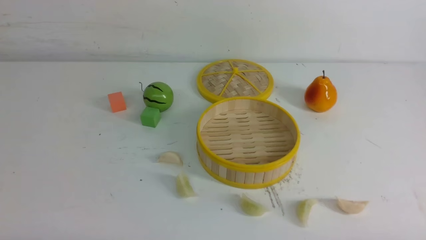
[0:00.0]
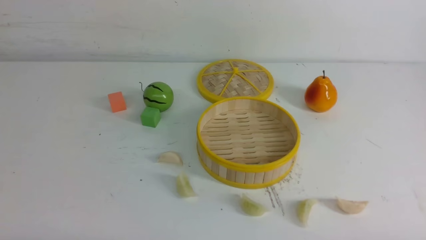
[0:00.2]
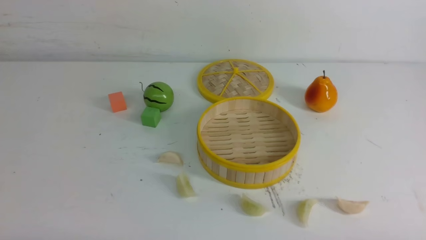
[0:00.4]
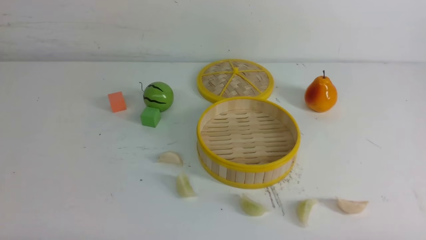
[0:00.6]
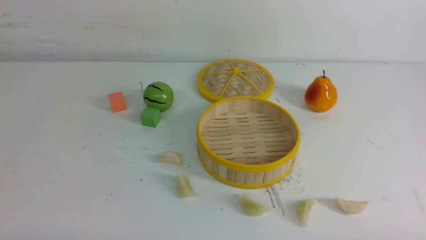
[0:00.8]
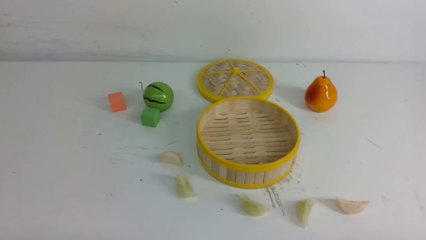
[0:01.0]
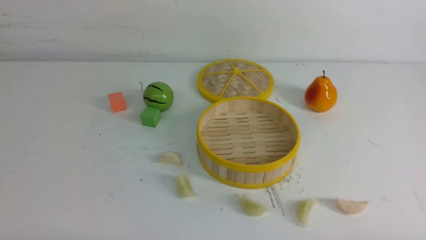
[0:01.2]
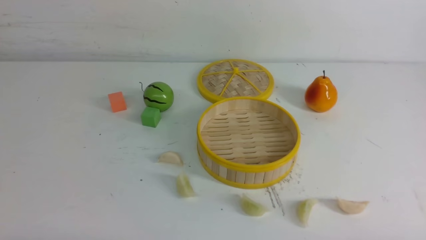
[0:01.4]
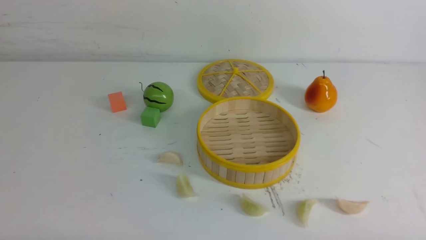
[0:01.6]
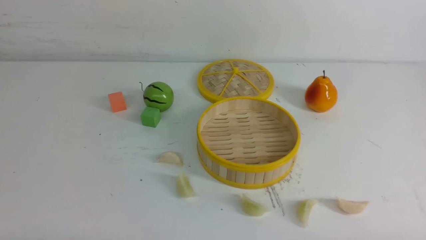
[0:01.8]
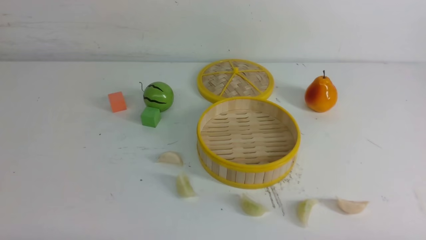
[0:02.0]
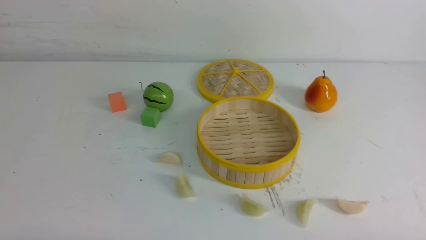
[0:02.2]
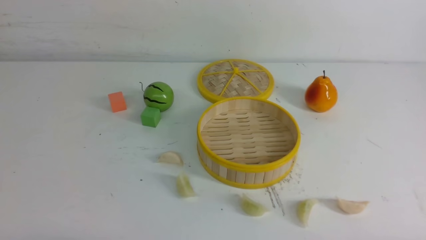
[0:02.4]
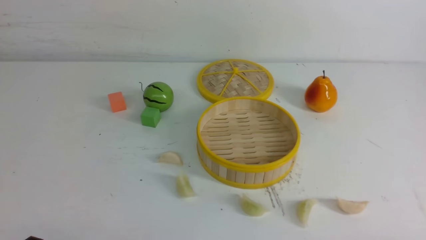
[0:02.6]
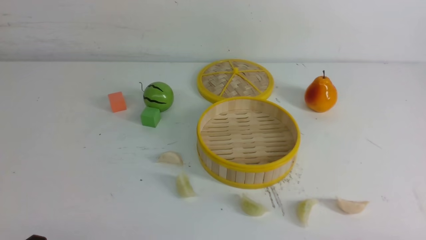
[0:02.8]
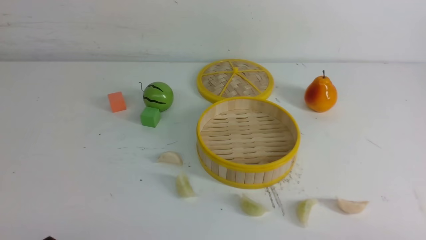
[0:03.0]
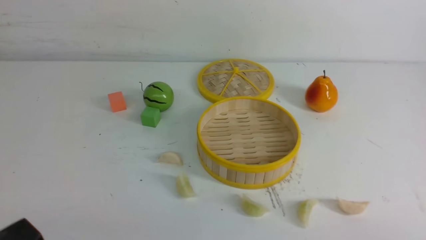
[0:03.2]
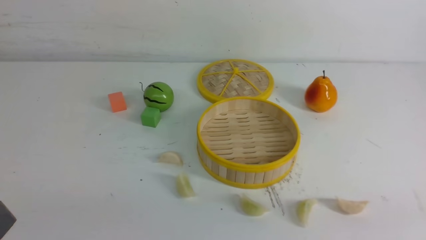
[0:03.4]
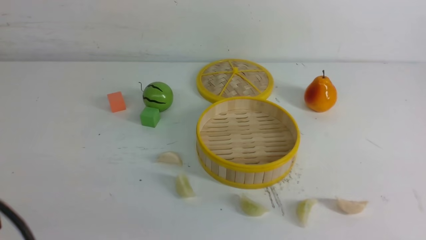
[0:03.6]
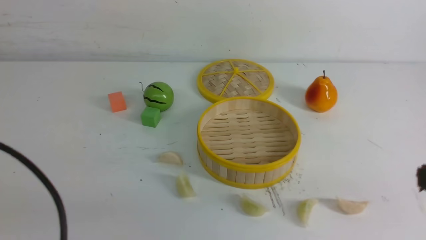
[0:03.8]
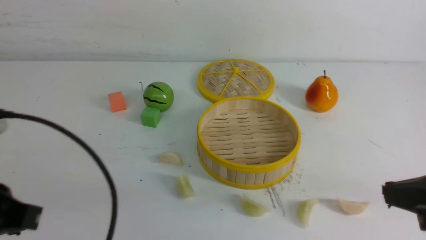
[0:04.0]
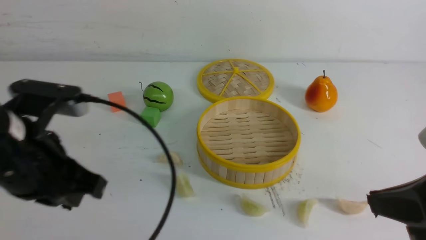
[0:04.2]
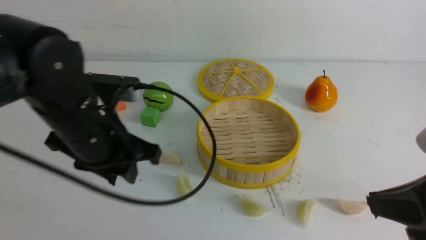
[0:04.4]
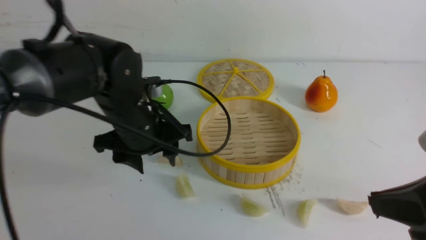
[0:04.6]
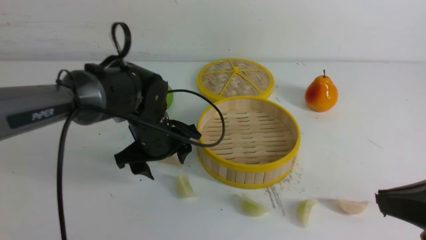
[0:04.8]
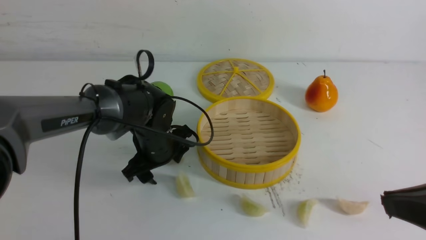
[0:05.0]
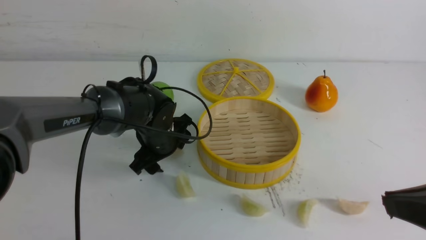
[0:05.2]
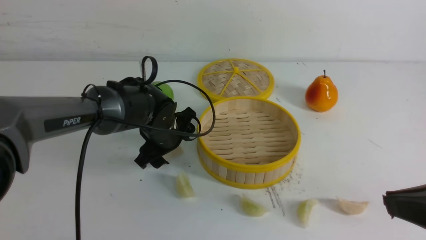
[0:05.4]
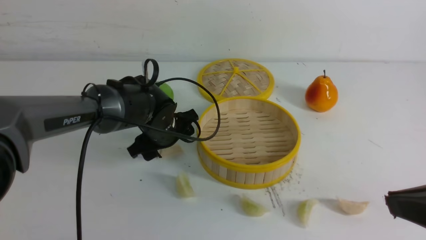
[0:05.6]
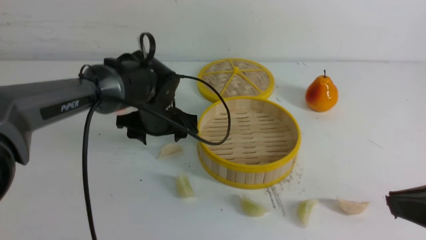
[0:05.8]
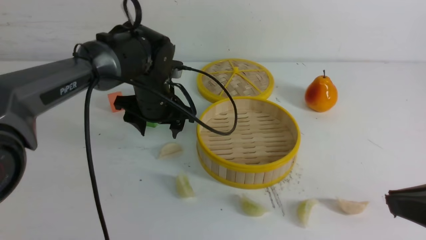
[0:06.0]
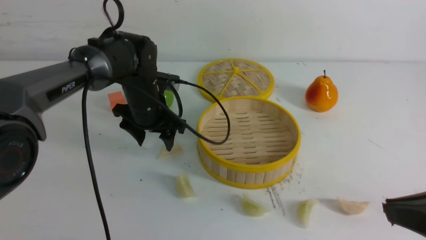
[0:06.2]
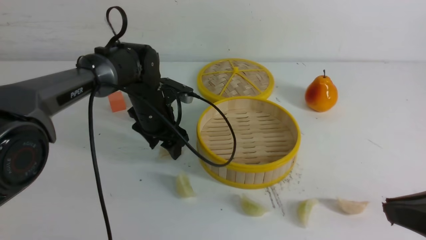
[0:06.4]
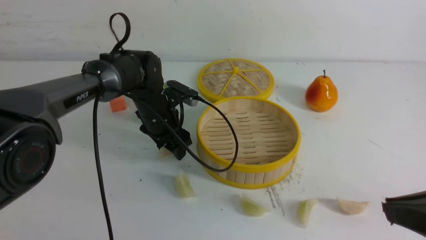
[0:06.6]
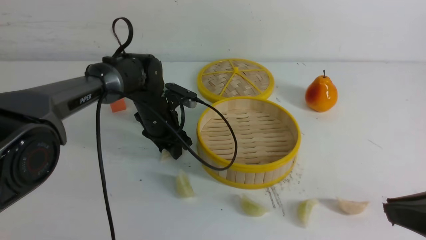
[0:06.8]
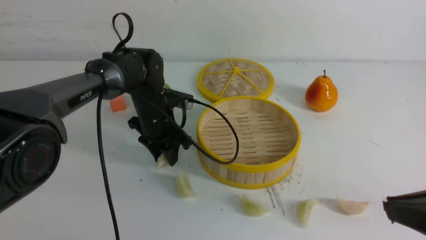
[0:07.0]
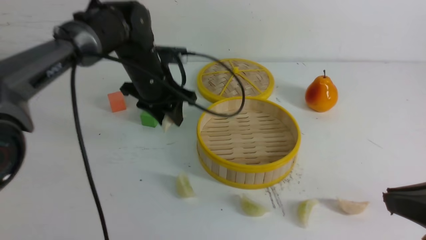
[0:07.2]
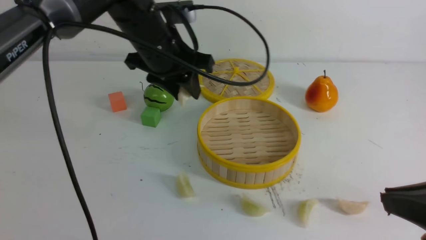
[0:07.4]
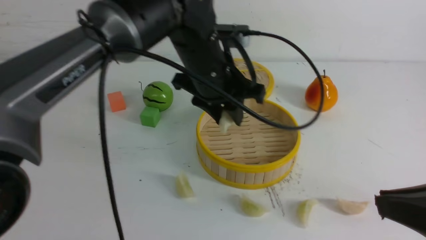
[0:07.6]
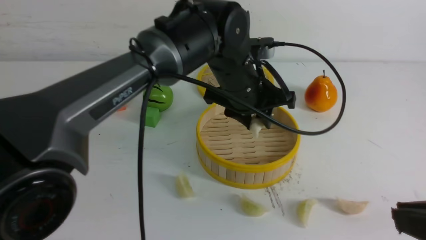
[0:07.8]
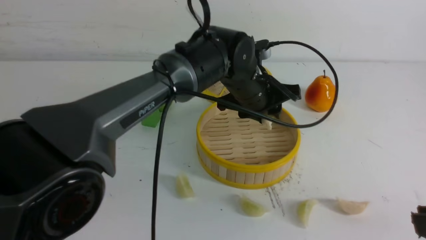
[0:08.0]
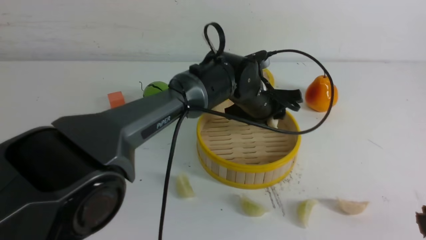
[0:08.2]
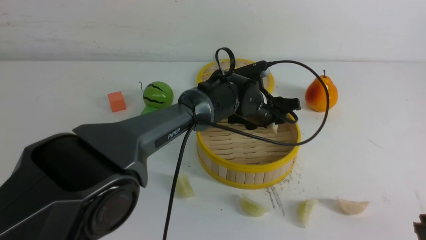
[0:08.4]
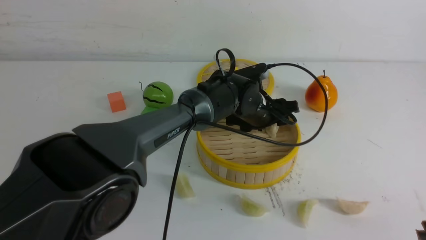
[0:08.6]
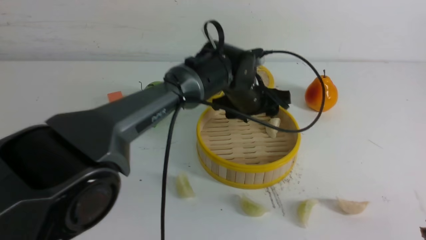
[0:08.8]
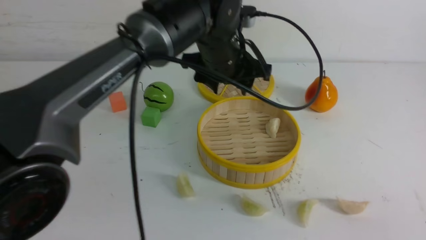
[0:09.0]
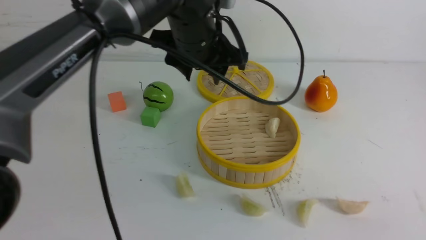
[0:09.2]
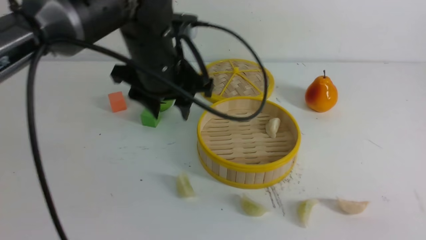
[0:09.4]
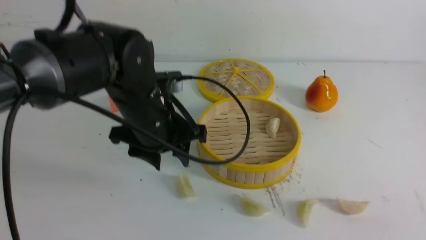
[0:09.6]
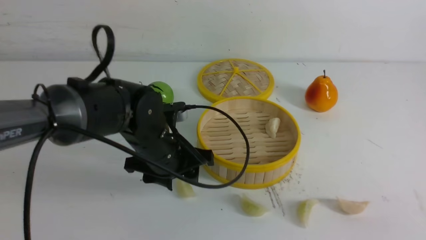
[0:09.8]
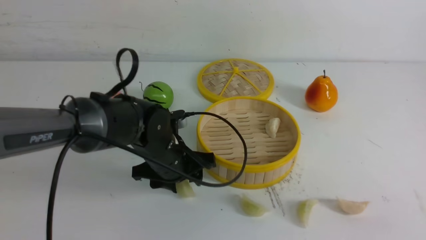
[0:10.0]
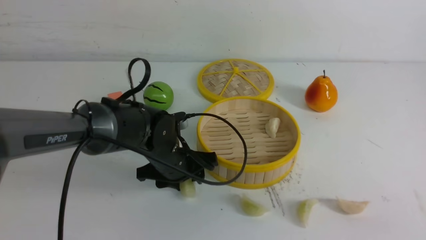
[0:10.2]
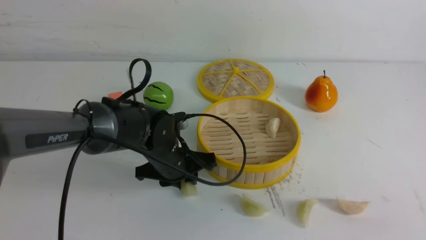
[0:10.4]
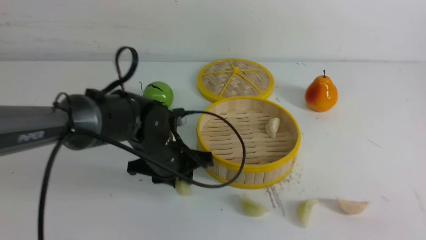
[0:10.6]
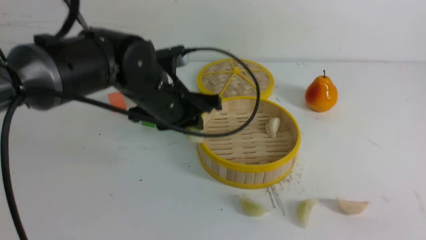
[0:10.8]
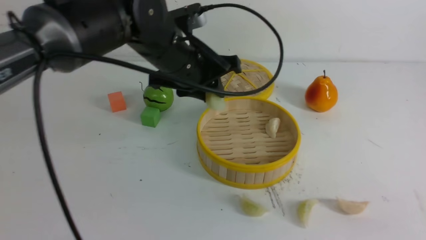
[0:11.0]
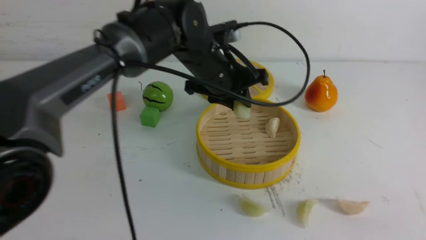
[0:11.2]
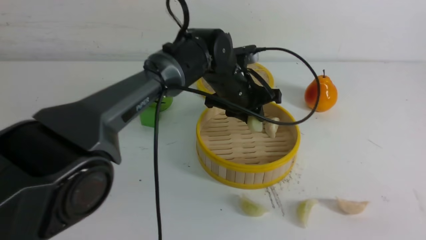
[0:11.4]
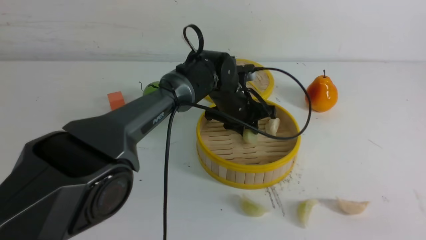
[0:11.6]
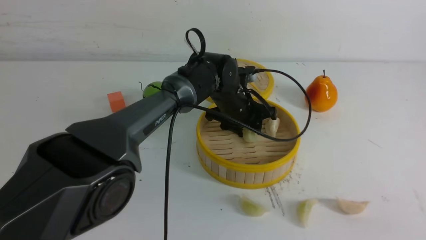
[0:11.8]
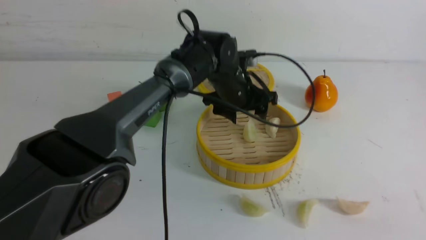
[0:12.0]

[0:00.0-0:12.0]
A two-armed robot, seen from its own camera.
Task of the whole recording: put the dumplings into the steamer on the white table.
Step, 0:00.0 to 0:07.0: use the left arm to grab a dumpling.
Step, 0:07.2 to 0:08.6: use the left arm to put the dumpling into the steamer.
Step, 0:08.8 to 0:10.6: use the left arm to grab a dumpling.
Step, 0:10.8 to 0:11.8: use the left arm to put the dumpling into the steamer.
0:00.0 to 0:01.6: Neither gripper changes place.
0:03.0 to 0:04.4: The right gripper travels upward, forward and to the left by roughly 15 cm, and closes up. The left gripper shifts approximately 25 cm forward and to the right, and closes and opens again.
0:04.4 to 0:06.0: The left gripper travels forward and downward by approximately 15 cm, and opens up.
0:06.0 to 0:07.6: The left gripper heads upward and to the right, covering about 15 cm, and closes its fingers.
0:07.6 to 0:09.0: The left gripper travels downward and back again, roughly 10 cm each way.
0:09.0 to 0:10.4: The left gripper is displaced downward and to the left by approximately 15 cm.
0:10.4 to 0:12.0: The left gripper goes up and down, some 15 cm each way, reversing 2 times, and opens its fingers.

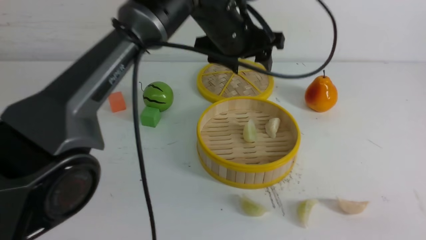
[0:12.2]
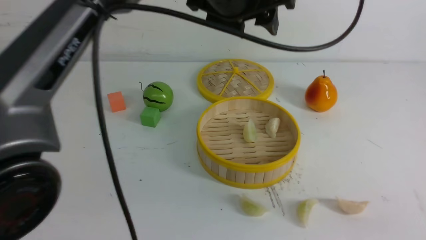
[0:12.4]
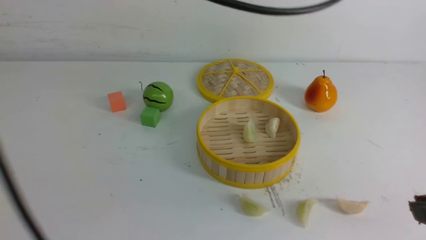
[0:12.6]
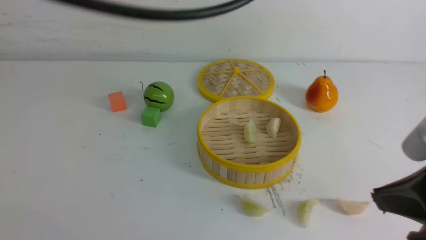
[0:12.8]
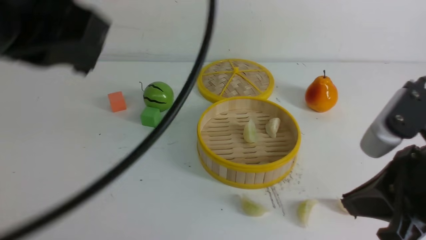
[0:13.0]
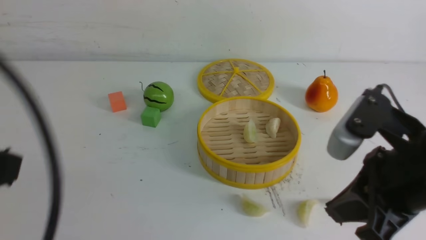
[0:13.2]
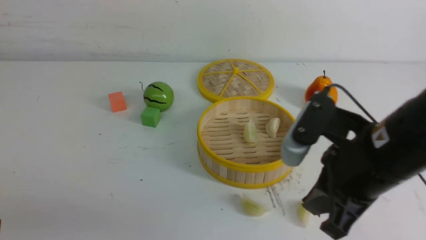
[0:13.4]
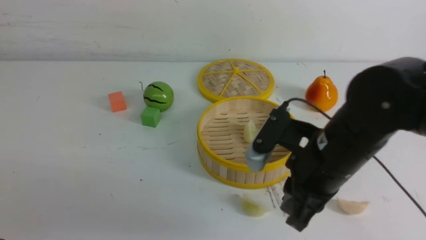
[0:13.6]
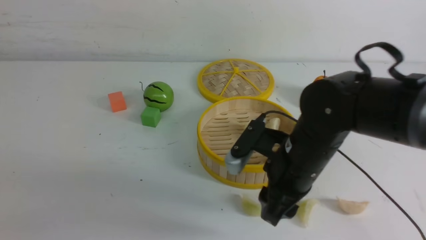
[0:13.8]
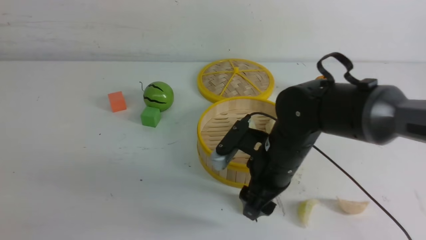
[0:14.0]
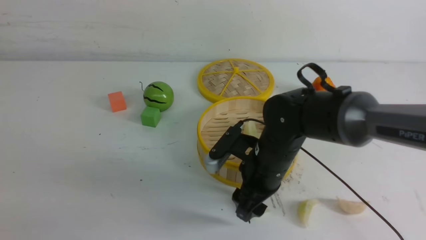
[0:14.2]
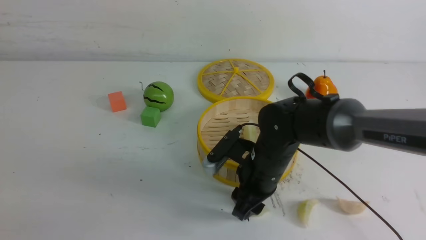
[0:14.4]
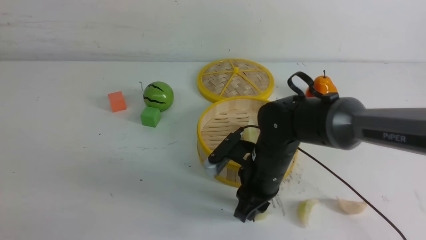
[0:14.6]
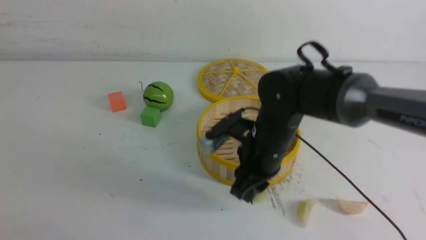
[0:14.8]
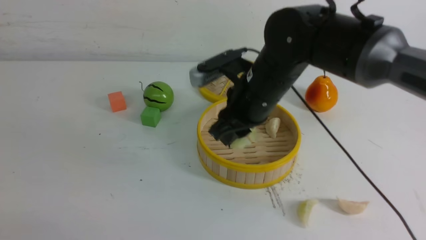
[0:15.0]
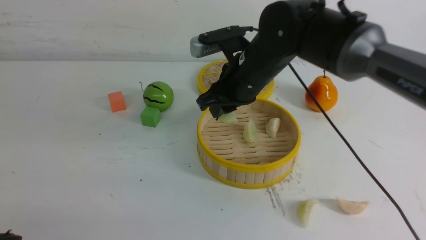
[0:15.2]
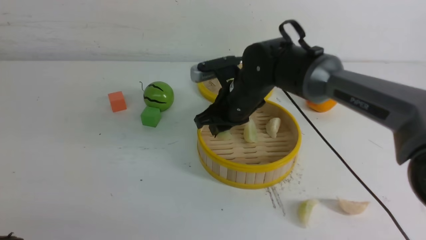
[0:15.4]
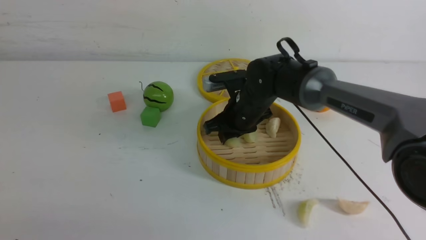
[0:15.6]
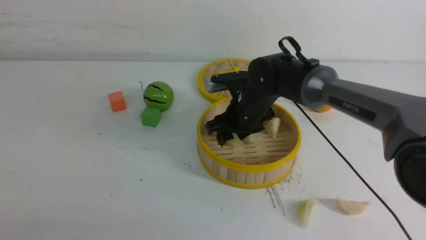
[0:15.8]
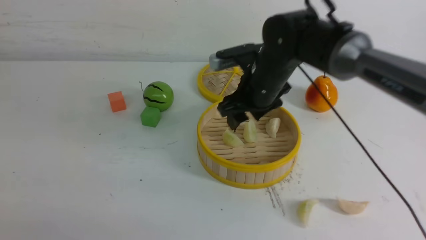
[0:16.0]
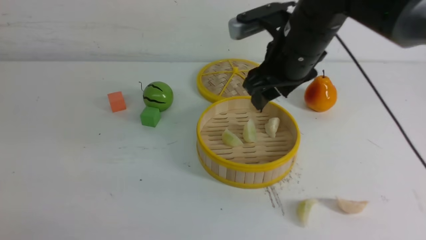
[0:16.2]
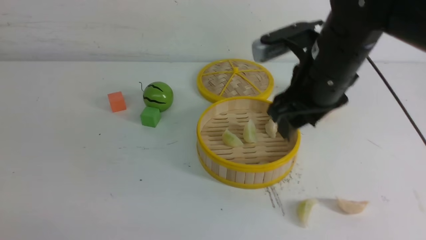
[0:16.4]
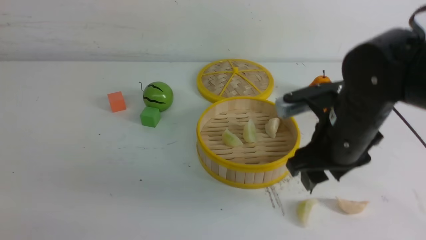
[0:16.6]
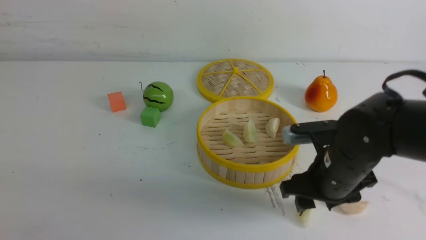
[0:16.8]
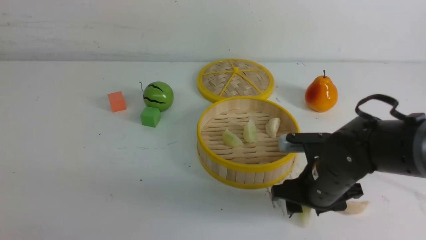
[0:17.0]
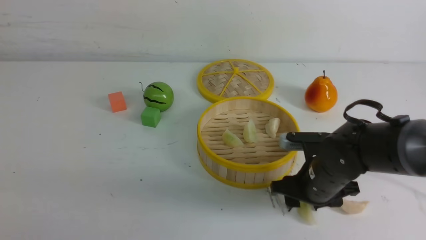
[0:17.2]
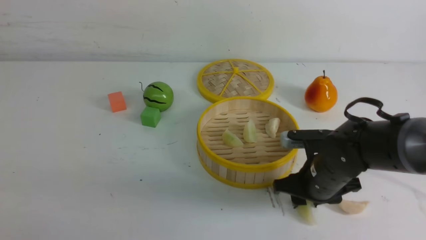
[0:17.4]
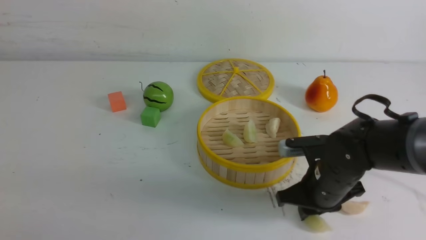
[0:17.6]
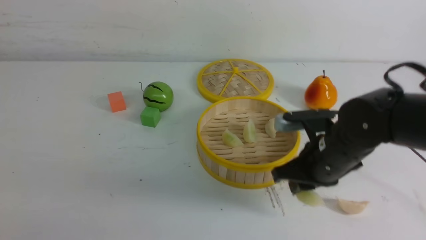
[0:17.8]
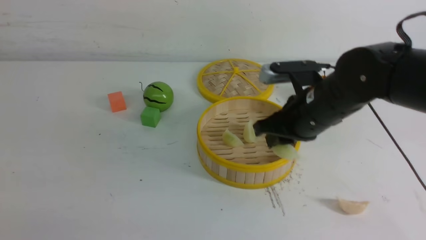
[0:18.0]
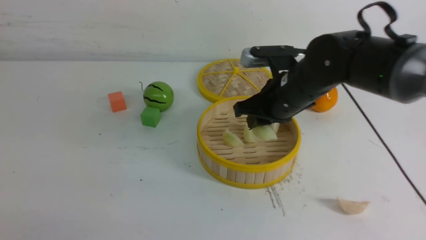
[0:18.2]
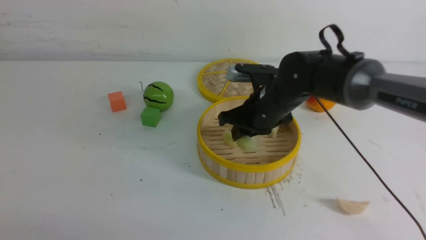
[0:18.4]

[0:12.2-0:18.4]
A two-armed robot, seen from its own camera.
Task of the whole recording: put the dumplings into the steamer on the white table.
Step, 0:12.2 to 0:14.6: use the right arm to grab a dumpling.
Step, 0:14.8 to 0:15.8: use the right arm to put the dumpling into the steamer.
Step, 0:16.0 to 0:17.6: use the right arm to grab a dumpling.
0:12.2 to 0:13.8: The right gripper goes approximately 30 cm forward, to the left and downward, and opens, while the left gripper is displaced backward and to the left by roughly 40 cm, and closes up.
0:13.8 to 0:15.4: The right gripper travels forward by roughly 15 cm.
0:15.4 to 0:16.8: The right gripper goes roughly 15 cm backward and to the right, and opens.
0:16.8 to 0:18.4: The right gripper shifts about 15 cm forward and to the left, and closes its fingers.
